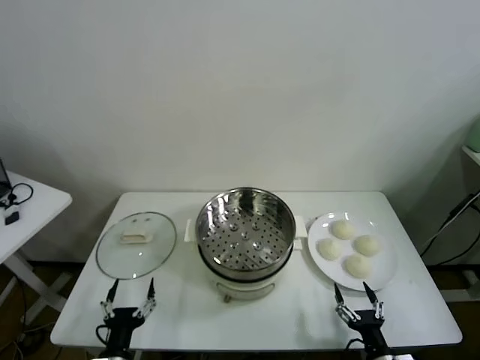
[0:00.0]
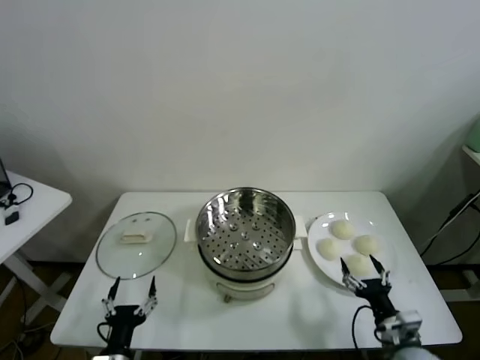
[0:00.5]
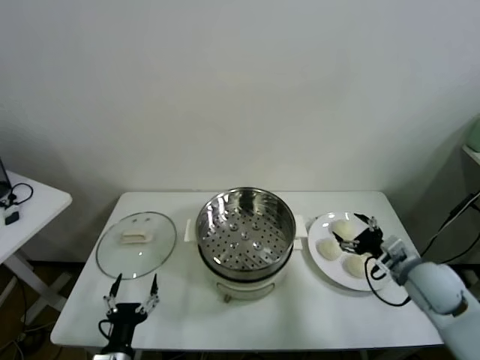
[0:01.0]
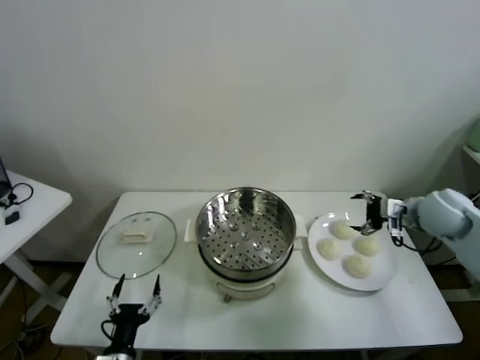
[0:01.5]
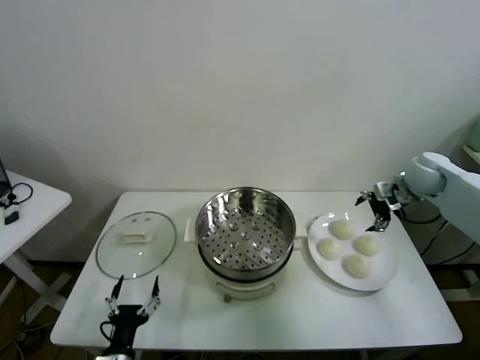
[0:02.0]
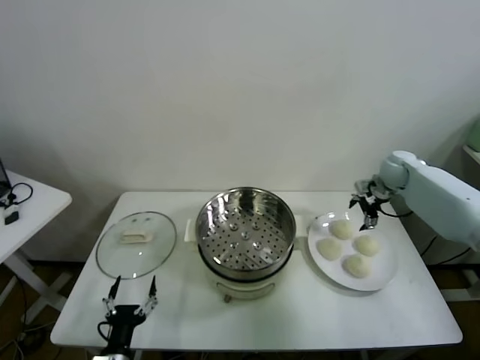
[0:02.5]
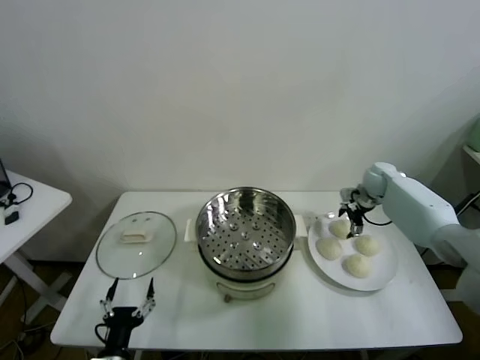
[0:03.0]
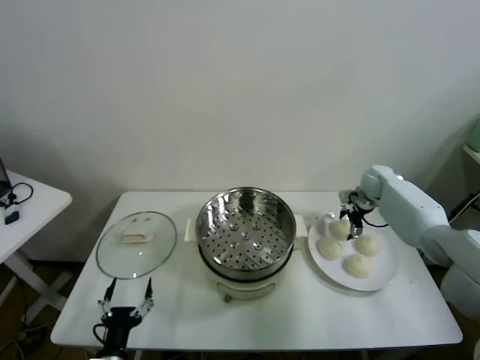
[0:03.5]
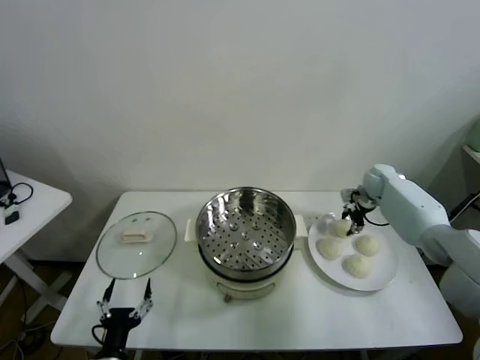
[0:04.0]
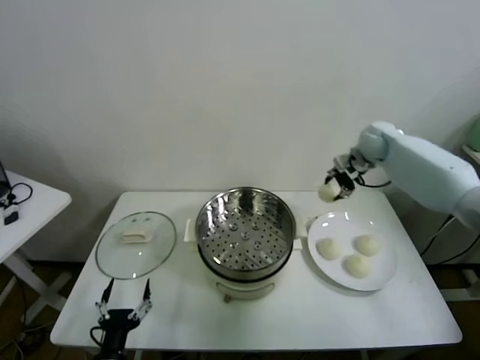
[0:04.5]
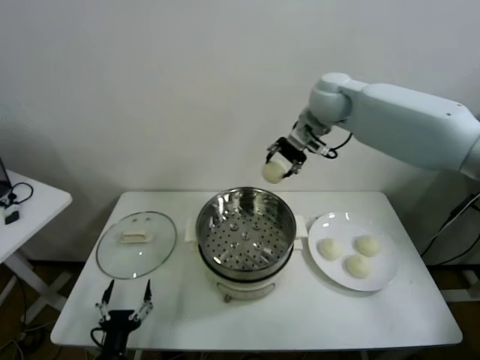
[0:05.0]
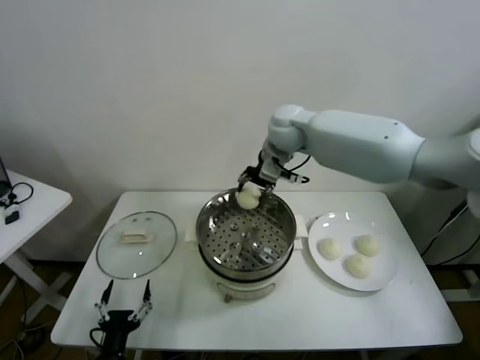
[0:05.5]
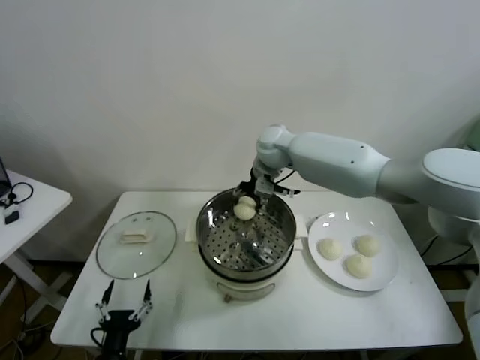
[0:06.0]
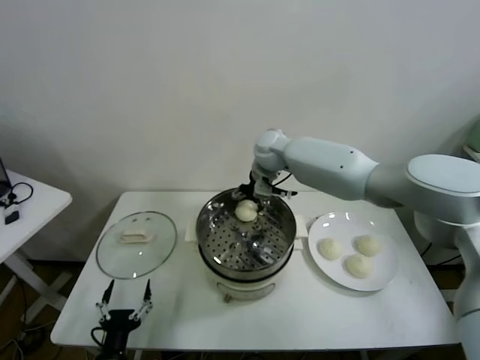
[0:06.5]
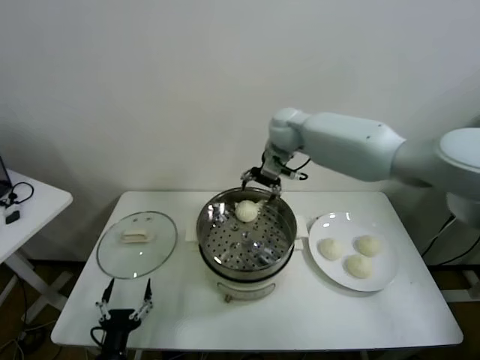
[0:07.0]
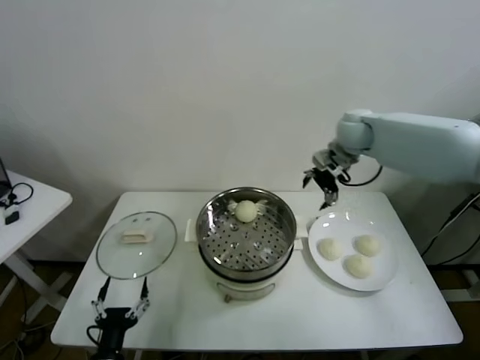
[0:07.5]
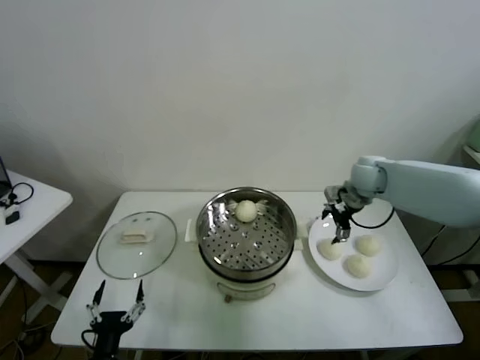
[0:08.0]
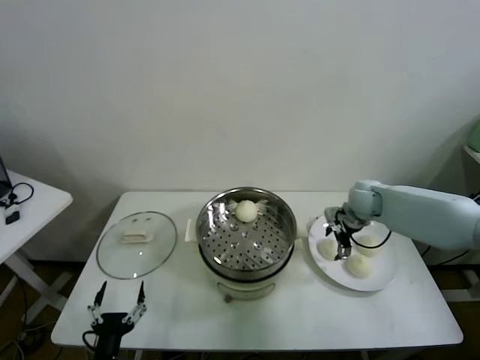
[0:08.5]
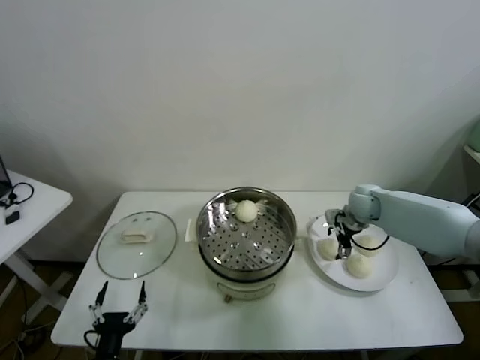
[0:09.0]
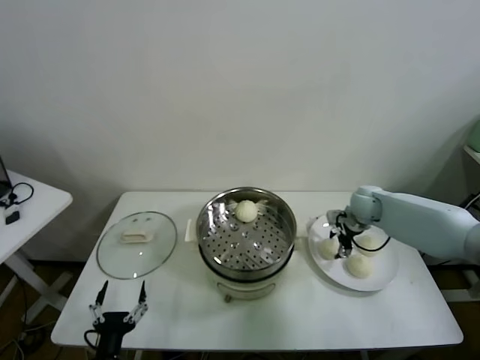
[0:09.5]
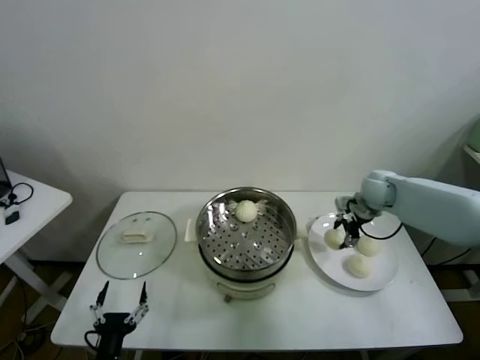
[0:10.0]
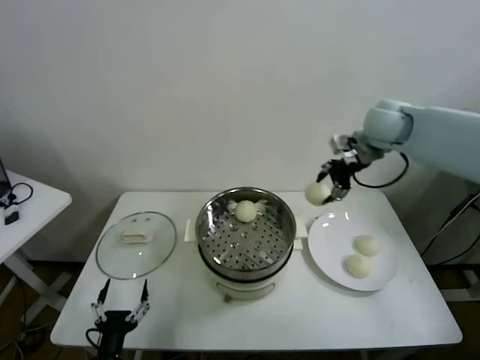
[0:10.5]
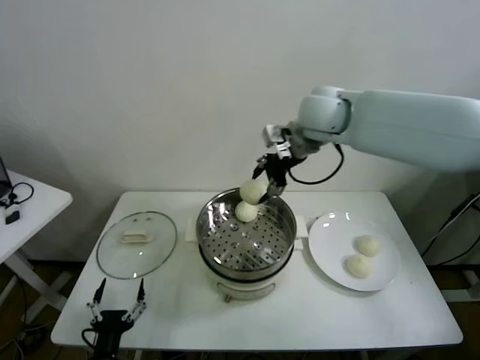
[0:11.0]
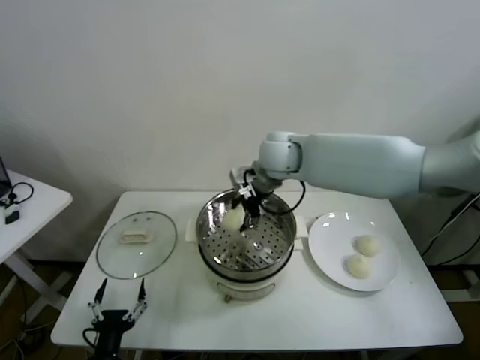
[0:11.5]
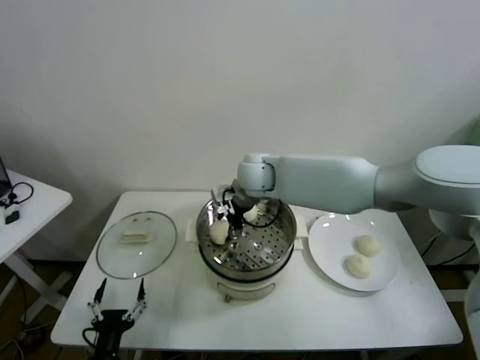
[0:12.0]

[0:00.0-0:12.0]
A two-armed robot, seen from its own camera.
Task of the whole recording: take steamed baozi put them in steamer.
Step, 0:00.0 to 0:03.5: Grasp the baozi in the plate with right gripper.
Step, 0:04.0 to 0:06.5: Place the baozi on the steamer with right gripper.
Step, 0:07.0 to 0:09.0: Grasp the baozi in the plate with right gripper.
0:02.0 to 0:04.0: The right gripper travels downward and forward by roughly 10 cm, and closes its fingers.
0:04.0 to 0:06.0: The right gripper shifts approximately 35 cm to the left and upward.
0:06.0 to 0:08.0: The right gripper is displaced to the right by approximately 25 cm, and opens its fingers.
0:08.0 to 0:10.0: The right gripper goes downward and returns, some 10 cm each way, and closes up.
0:10.0 to 0:12.0: The right gripper travels to the left by some 30 cm.

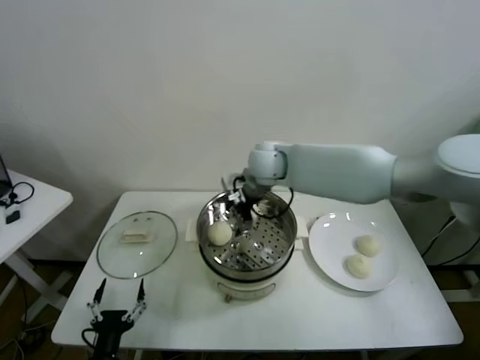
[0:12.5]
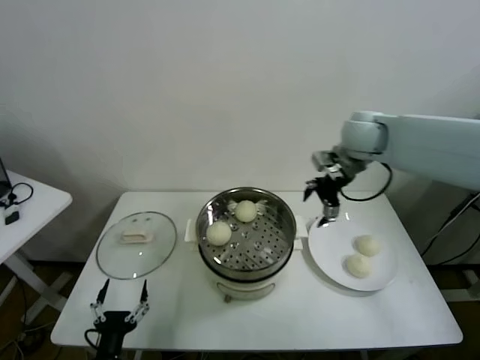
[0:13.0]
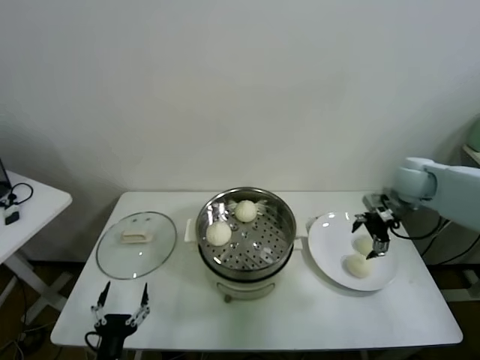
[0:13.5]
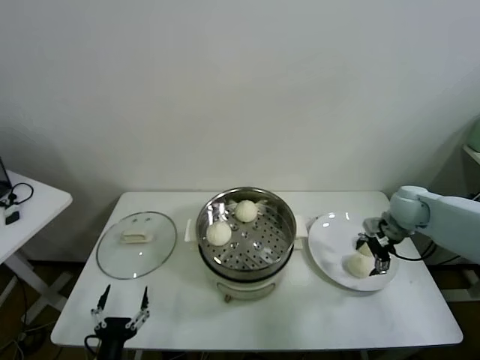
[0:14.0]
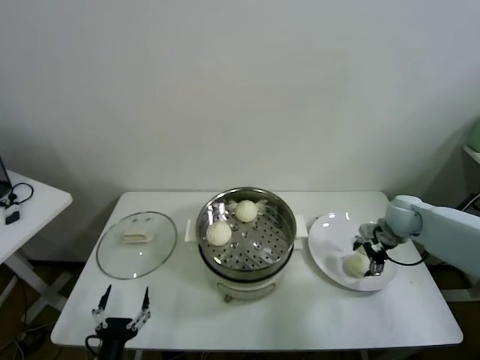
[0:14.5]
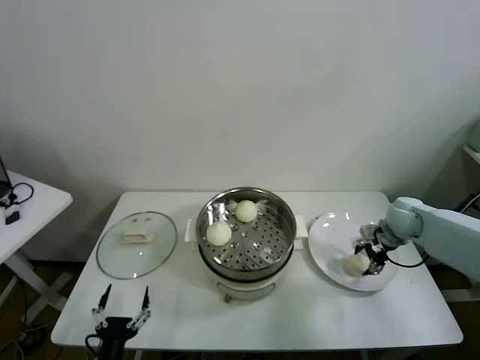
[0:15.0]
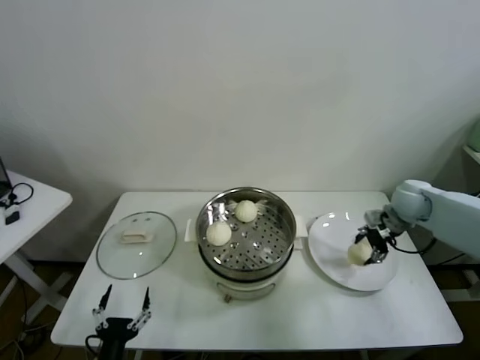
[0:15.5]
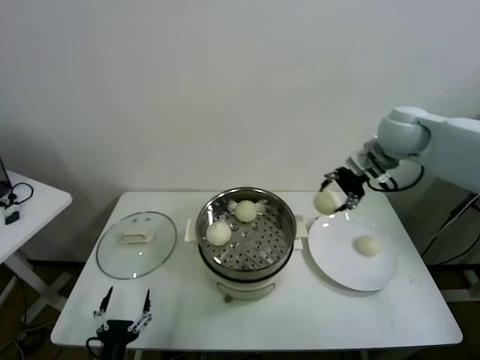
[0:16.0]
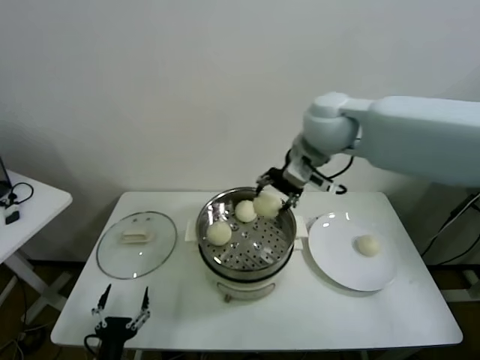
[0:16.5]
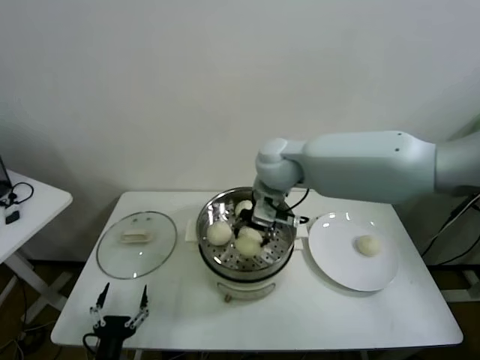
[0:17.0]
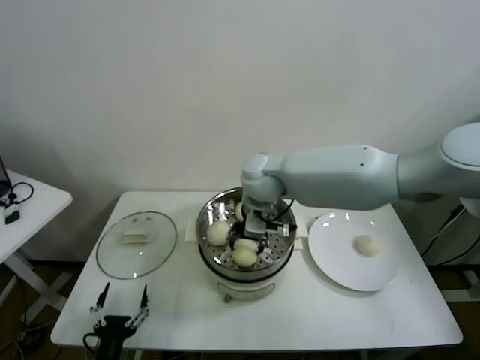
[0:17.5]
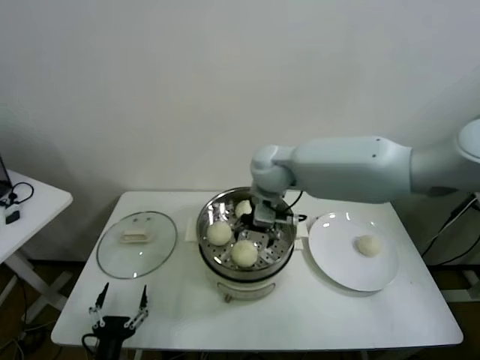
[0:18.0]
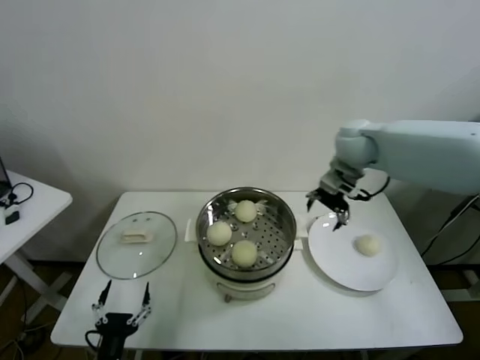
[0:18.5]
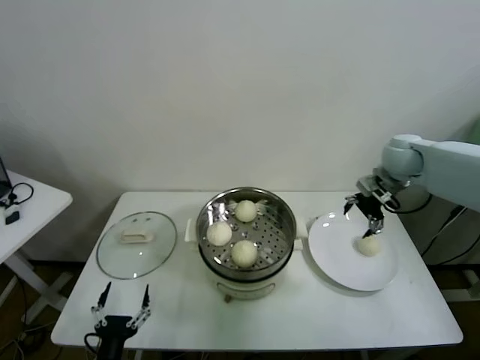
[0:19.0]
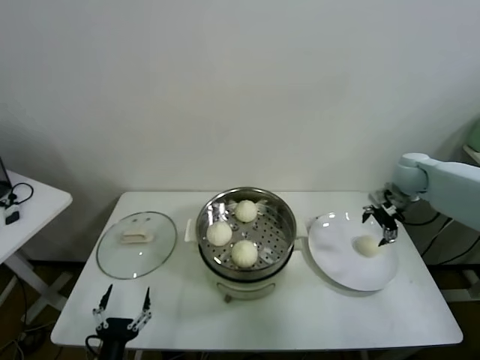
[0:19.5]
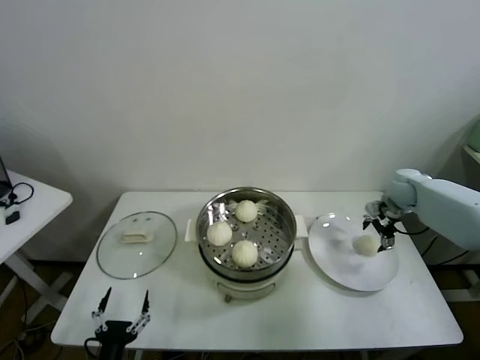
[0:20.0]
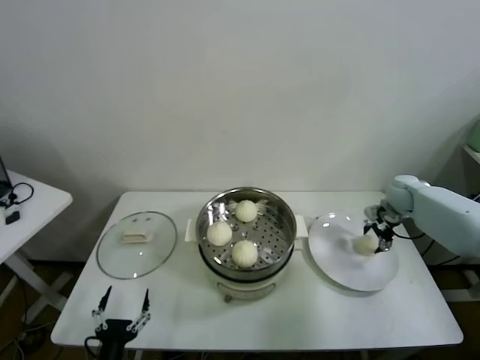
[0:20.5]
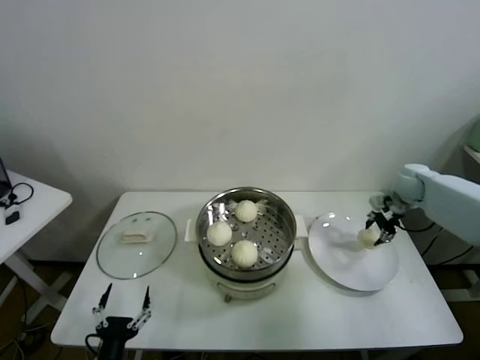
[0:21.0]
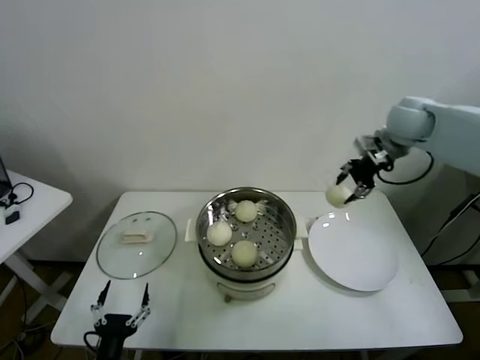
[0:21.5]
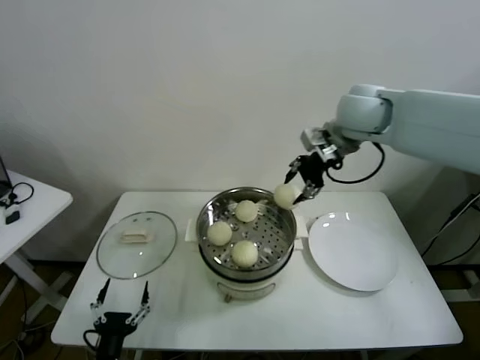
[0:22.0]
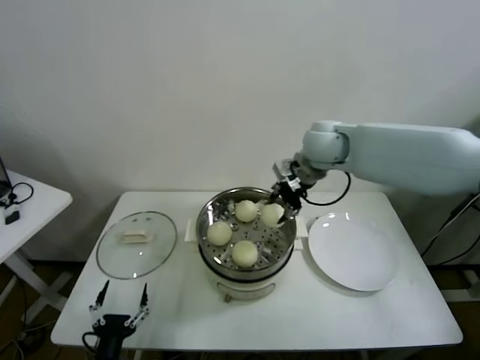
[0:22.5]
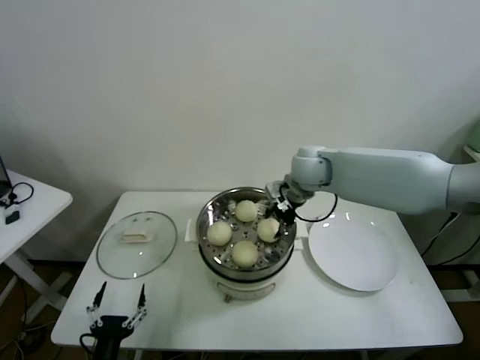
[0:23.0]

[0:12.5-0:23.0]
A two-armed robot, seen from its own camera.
Task of the whole recording: take steamed baozi put them in steamer.
Step, 0:12.5 to 0:15.0: Grasp the baozi in the plate with right gripper.
Step, 0:15.5 to 0:17.5: Place the baozi on the steamer with right gripper.
Step, 0:18.0 to 0:20.5: Grasp the baozi in the plate with right gripper.
0:12.5 to 0:14.5: The right gripper moves to the right and downward, about 35 cm.
0:14.5 to 0:16.5: The right gripper goes about 35 cm upward and to the left, and closes its fingers.
0:16.5 to 0:19.0: The right gripper is displaced to the right and downward by roughly 25 cm, and opens up.
0:19.0 to 0:21.0: The right gripper shifts roughly 15 cm downward and to the right, and closes.
0:21.0 to 0:23.0: The right gripper travels to the left by approximately 30 cm.

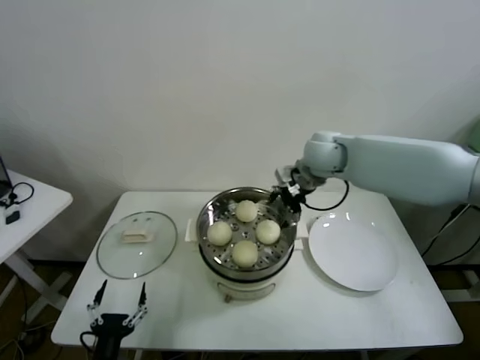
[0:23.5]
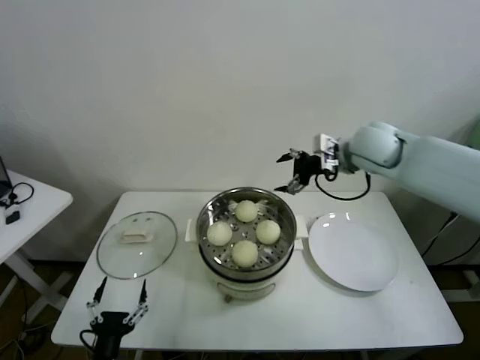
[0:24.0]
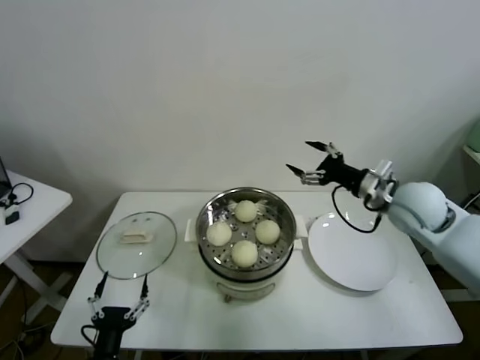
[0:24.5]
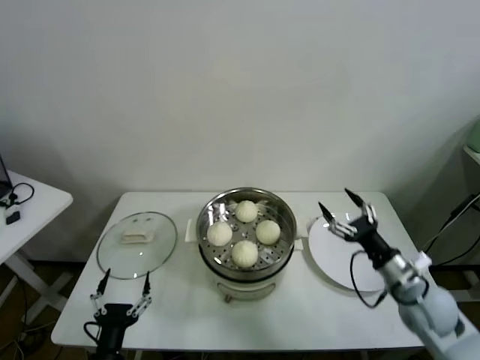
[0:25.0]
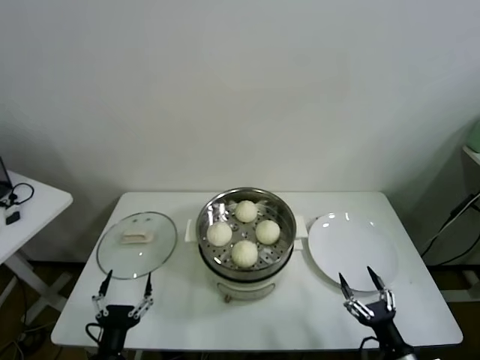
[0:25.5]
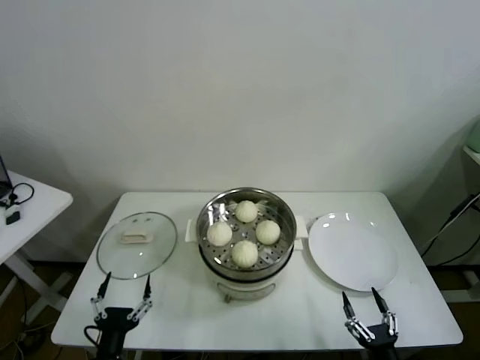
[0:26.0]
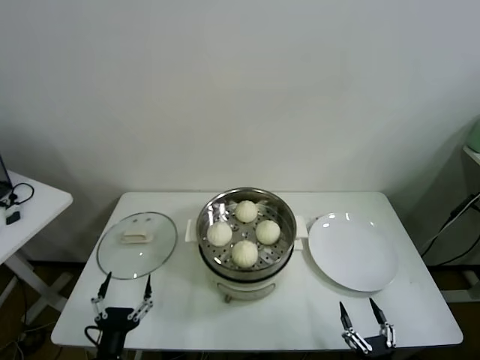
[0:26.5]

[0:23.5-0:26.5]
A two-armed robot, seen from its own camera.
Task of the whole recording: take steamed baozi put them in steamer.
0:23.5 to 0:25.0: The right gripper goes roughly 35 cm backward, to the right and downward.
0:25.0 to 0:26.5: The right gripper goes about 30 cm backward and downward.
